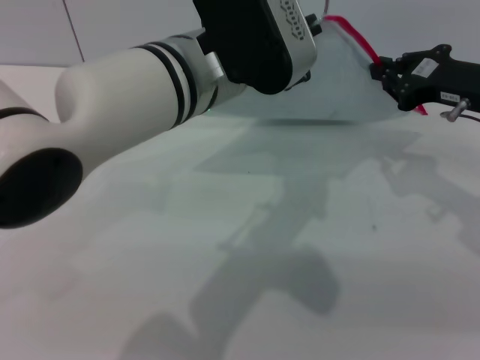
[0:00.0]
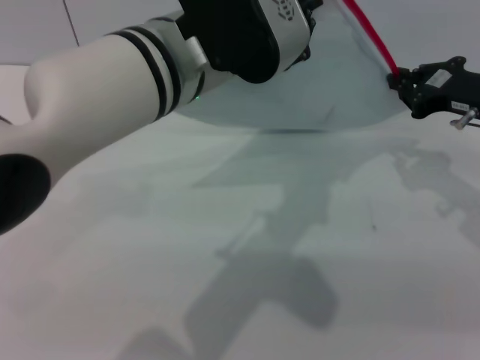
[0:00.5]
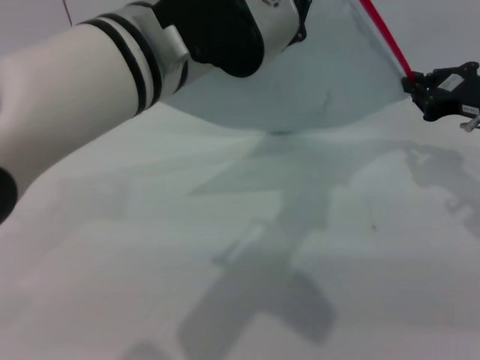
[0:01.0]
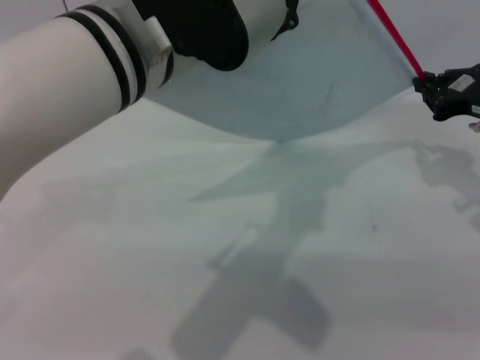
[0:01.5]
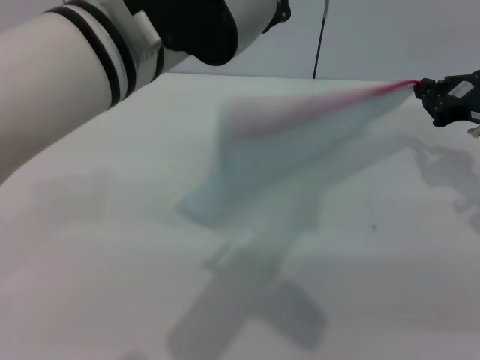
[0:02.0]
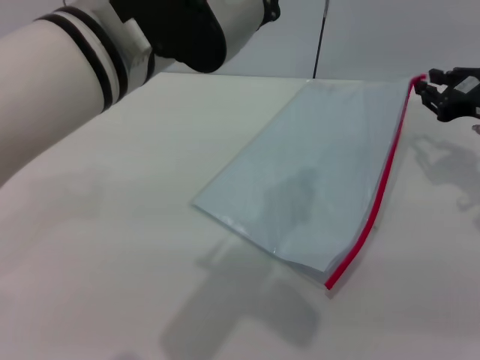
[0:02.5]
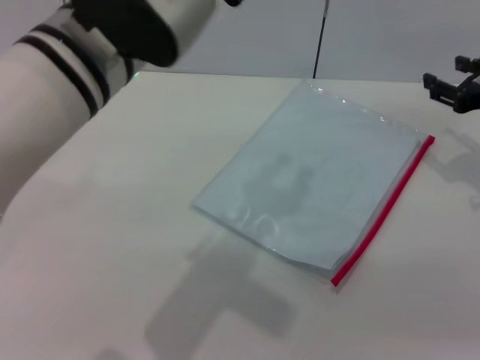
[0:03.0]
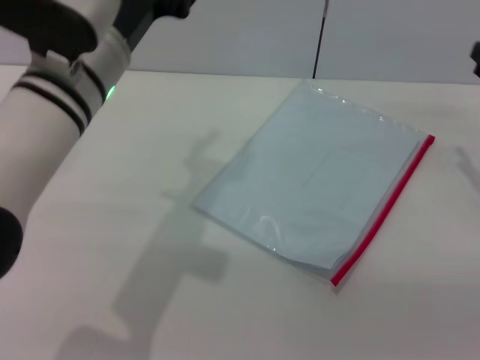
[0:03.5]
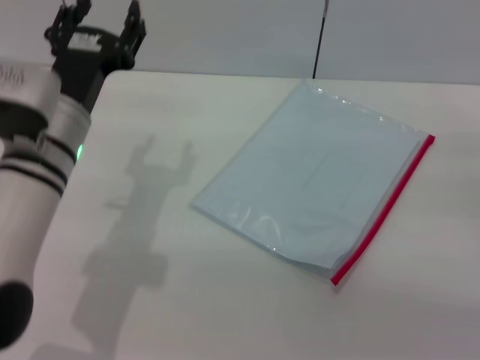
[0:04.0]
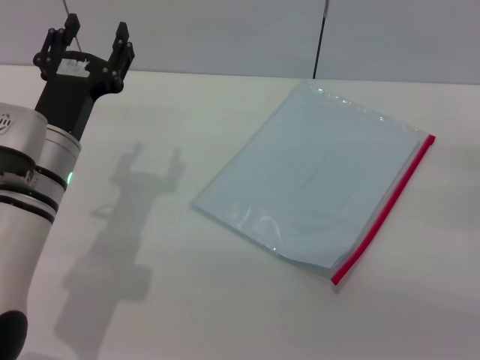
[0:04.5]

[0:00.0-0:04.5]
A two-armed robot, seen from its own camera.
Step, 0:00.0 to 0:02.0: Pulling up the zipper on the transparent plastic bag with the right gripper to close it.
0:00.0 to 0:02.0: The left gripper ends up approximately 5 cm from where it was.
0:02.0 to 0:04.5: The left gripper heads downward and to the left, covering approximately 20 cm, and opens up. Meanwhile the right gripper is displaced backward, downward and to the right by about 15 cm, and opens.

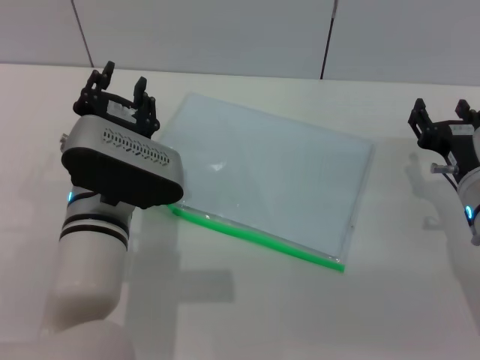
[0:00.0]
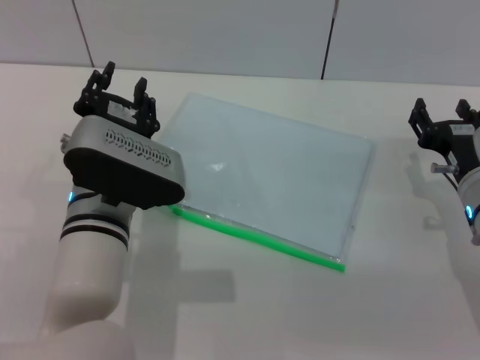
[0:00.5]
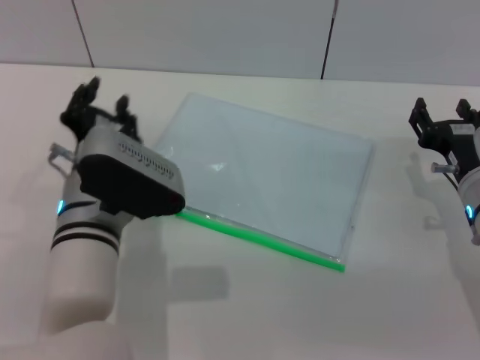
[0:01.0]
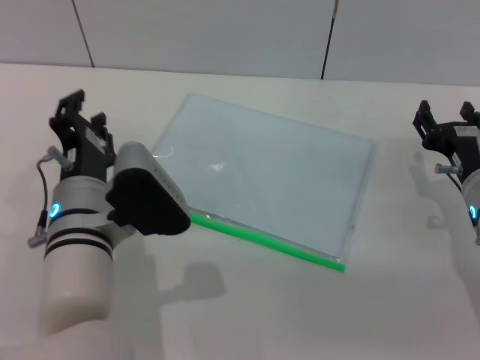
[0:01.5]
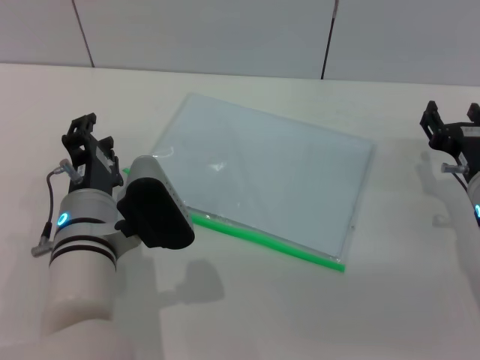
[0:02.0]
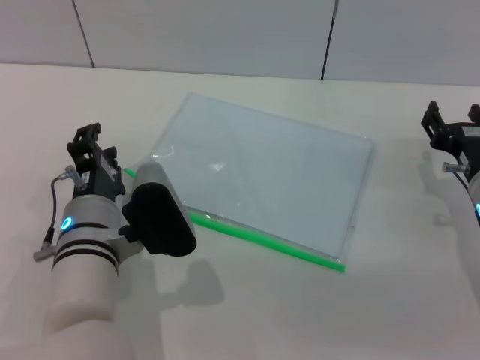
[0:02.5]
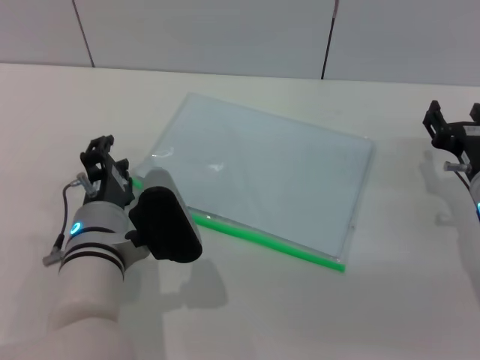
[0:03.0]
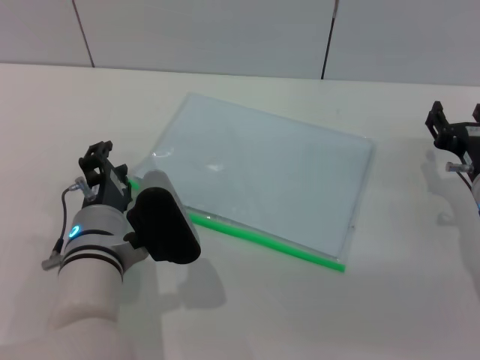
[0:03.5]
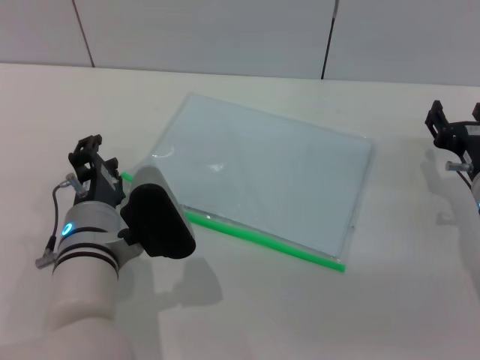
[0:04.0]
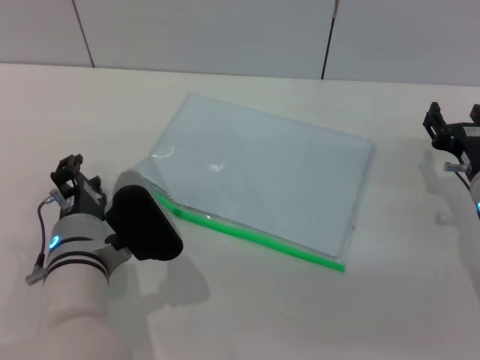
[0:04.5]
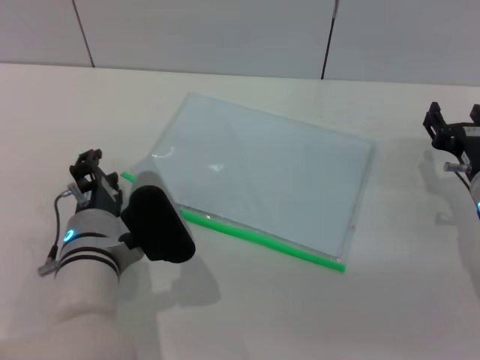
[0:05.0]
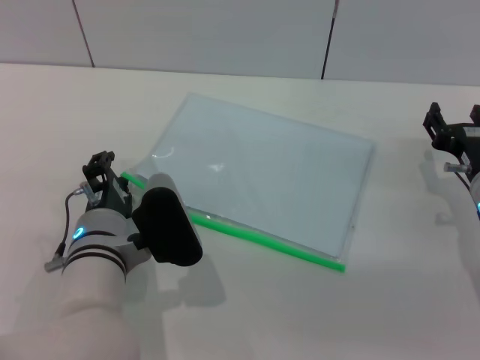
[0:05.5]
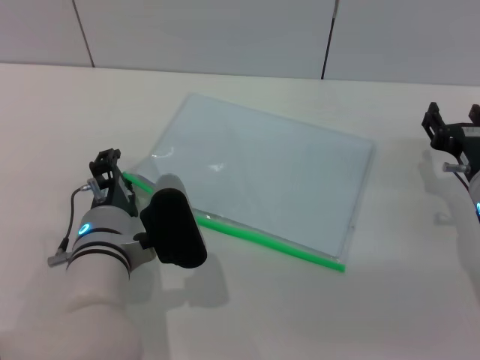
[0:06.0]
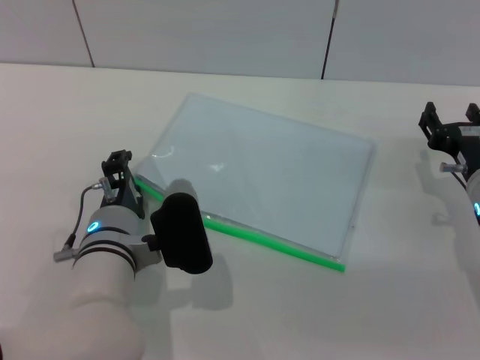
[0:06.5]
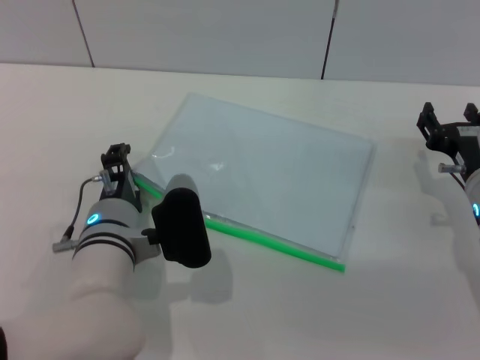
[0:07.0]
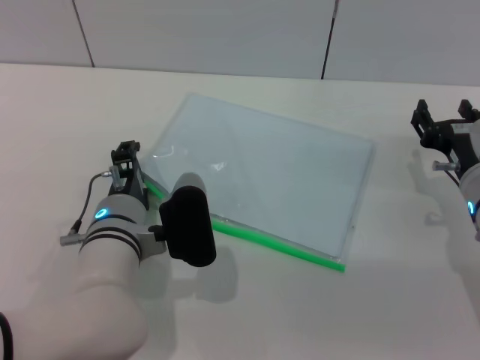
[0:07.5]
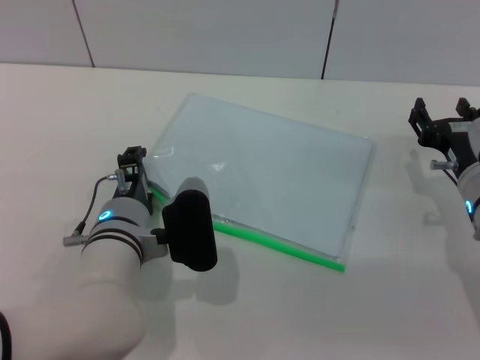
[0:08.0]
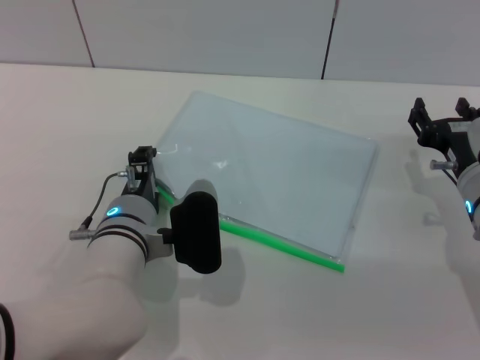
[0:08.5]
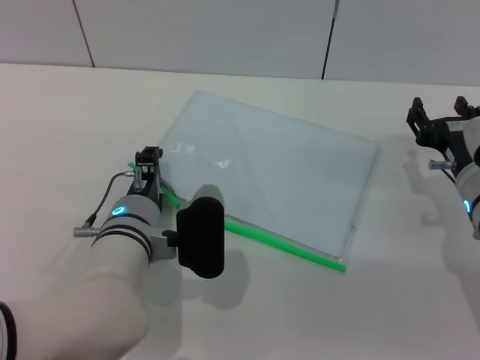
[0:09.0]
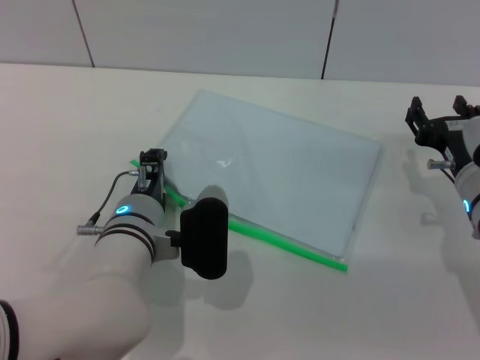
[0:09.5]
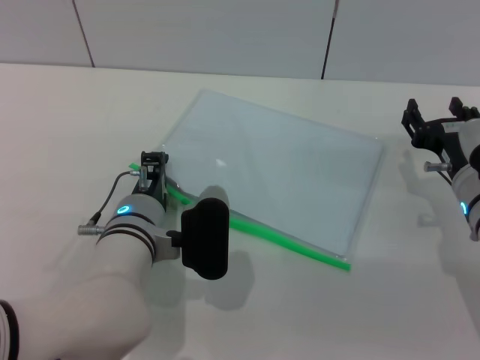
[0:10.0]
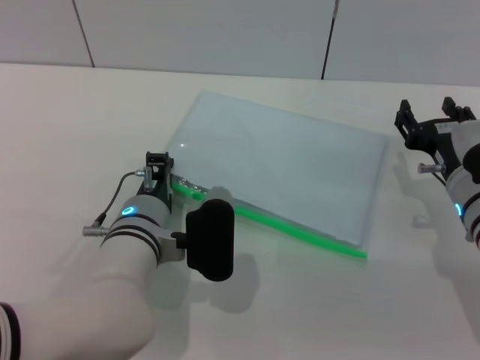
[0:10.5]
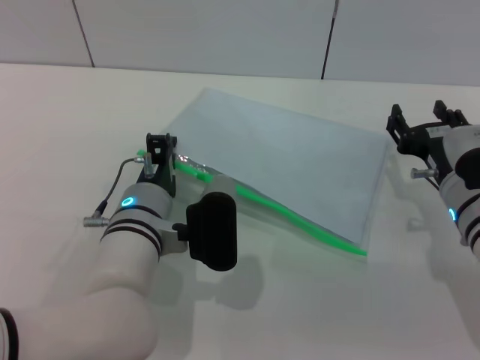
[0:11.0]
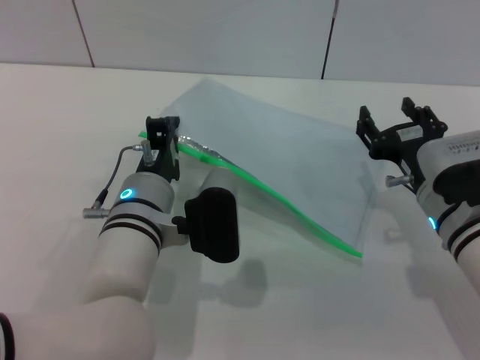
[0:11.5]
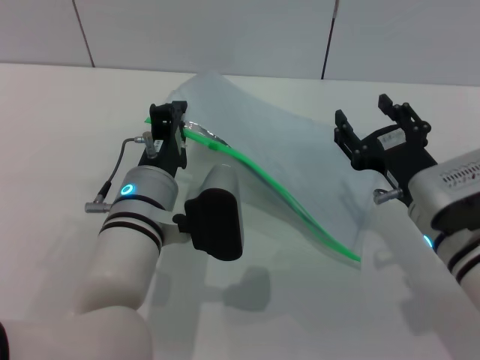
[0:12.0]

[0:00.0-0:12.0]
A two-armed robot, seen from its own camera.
Step, 0:00.0 to 0:11.0: Pick up the transparent plastic bag with the left gripper.
0:02.0 to 0:06.0: The grippers make only small movements.
0:06.0 to 0:08.0: The grippers make only small movements.
0:08.0 to 0:10.0: The left gripper closes.
0:10.0 to 0:12.0: The right gripper ends up approximately 5 cm from where it was.

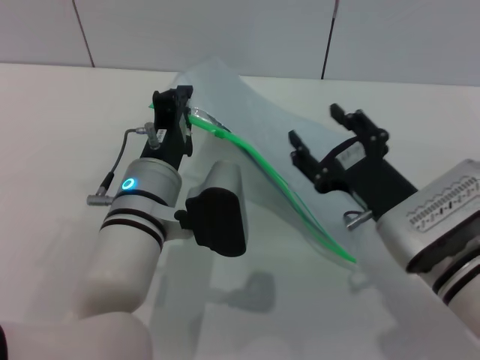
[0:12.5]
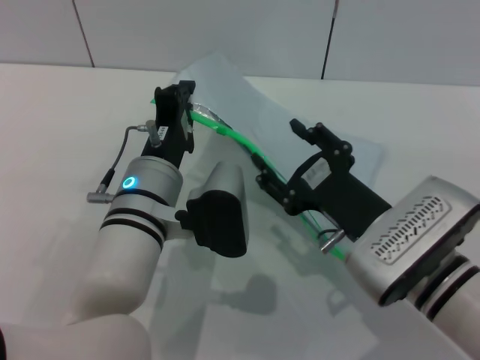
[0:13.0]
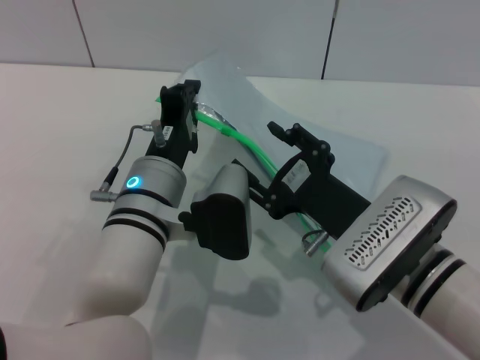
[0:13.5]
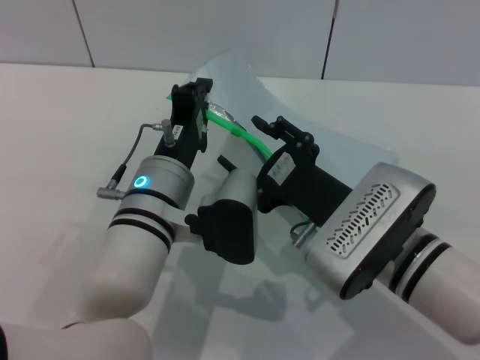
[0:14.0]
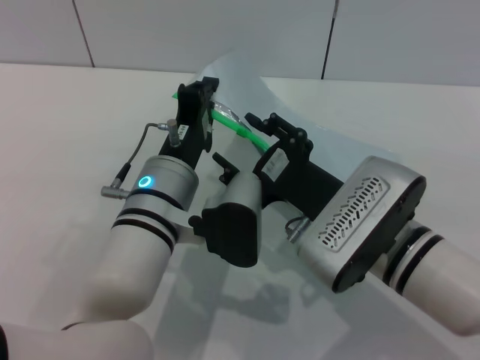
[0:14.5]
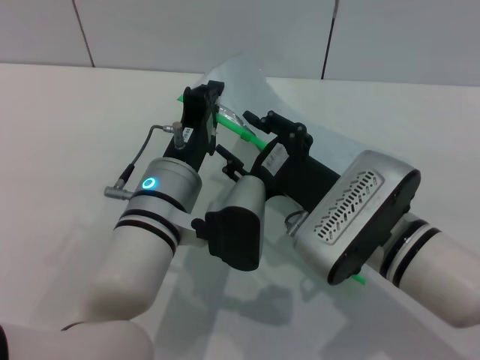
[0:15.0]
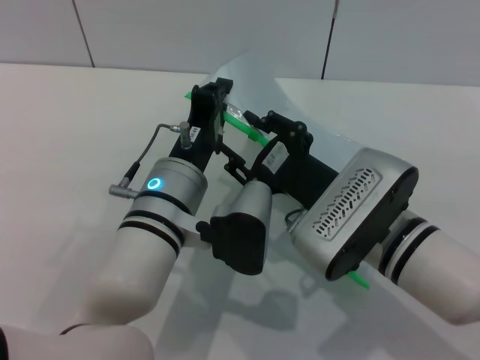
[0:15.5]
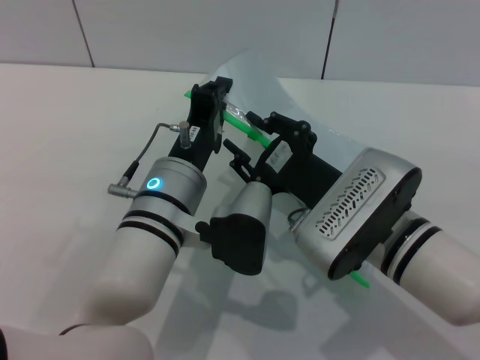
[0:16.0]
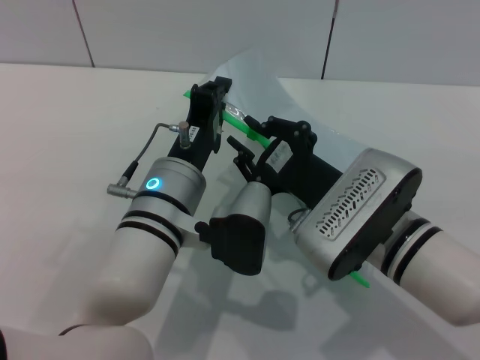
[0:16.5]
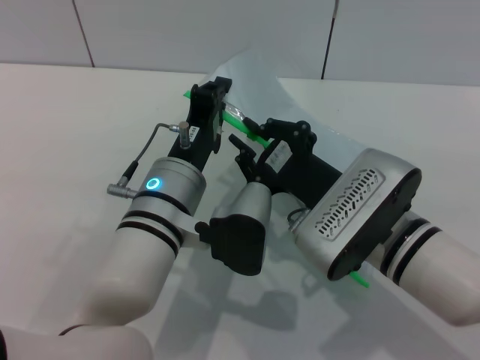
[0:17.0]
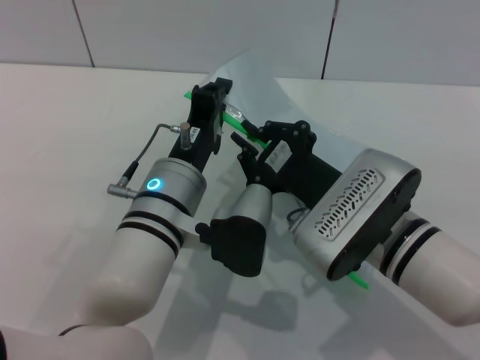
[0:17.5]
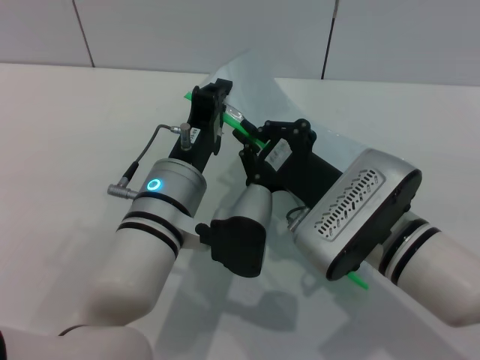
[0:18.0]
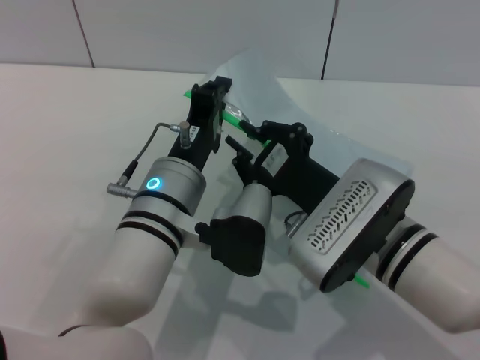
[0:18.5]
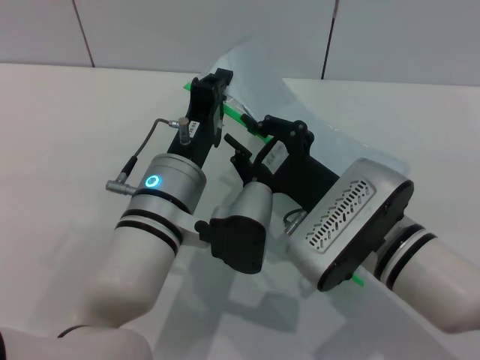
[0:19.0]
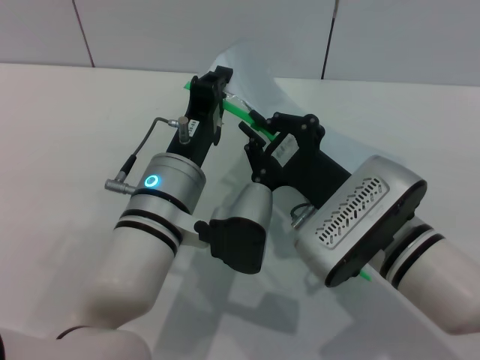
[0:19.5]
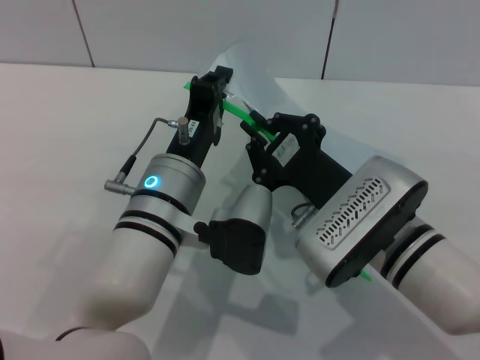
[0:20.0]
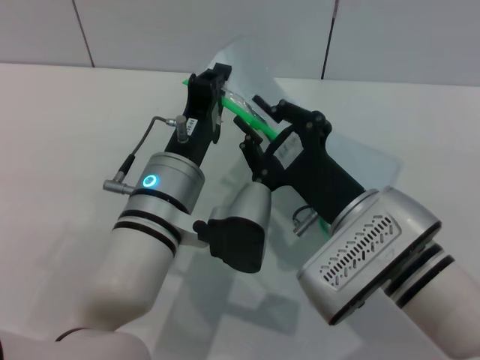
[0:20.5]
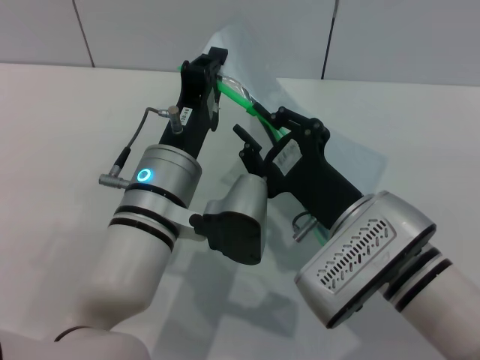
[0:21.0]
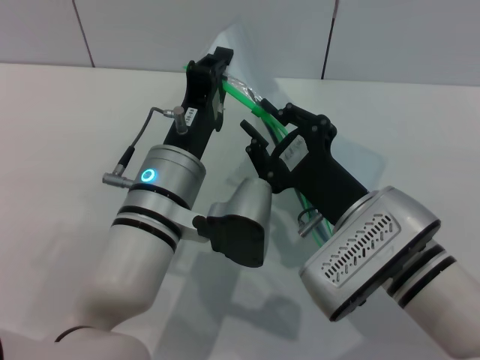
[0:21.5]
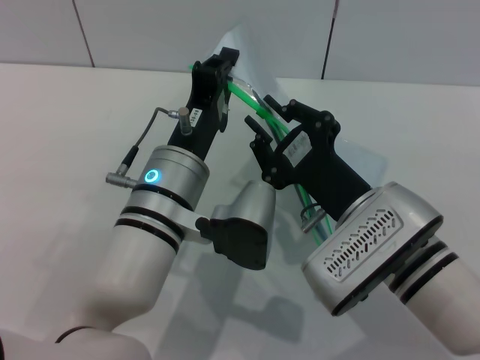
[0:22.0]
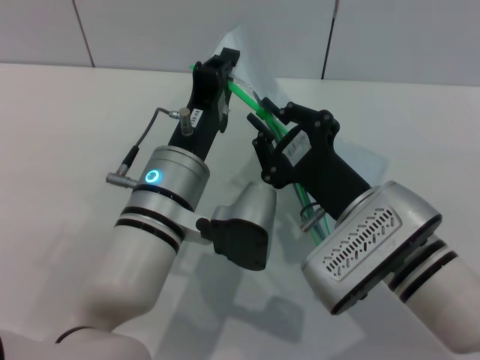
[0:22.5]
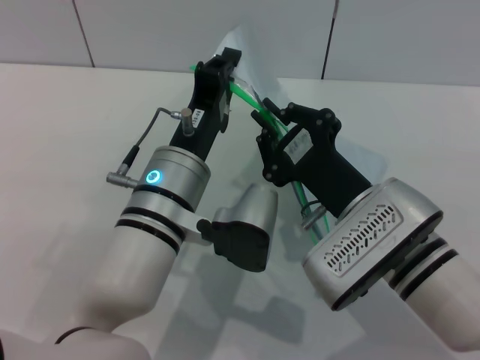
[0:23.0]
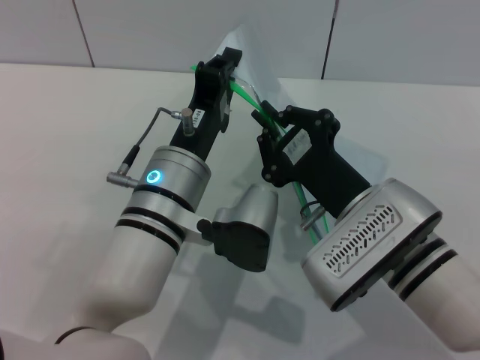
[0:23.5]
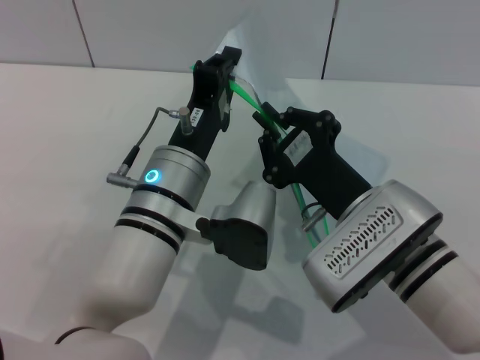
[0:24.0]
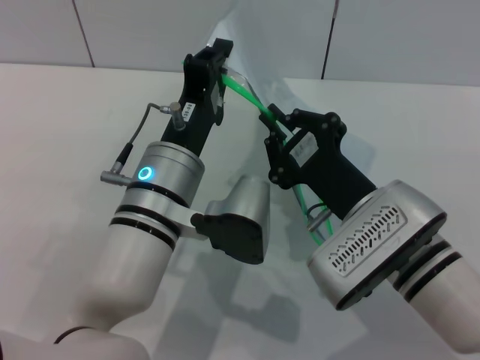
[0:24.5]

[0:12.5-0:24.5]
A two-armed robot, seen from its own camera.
0:12.5 to 0:14.5: The right gripper travels to the left by approximately 5 cm.
0:14.5 to 0:16.5: The right gripper closes up.
0:16.5 to 0:18.5: The right gripper closes up.
0:18.5 to 0:20.5: The grippers make only small movements.
0:20.5 to 0:22.5: Both grippers stay about where they are.
0:22.5 to 0:24.5: Neither gripper changes place.
